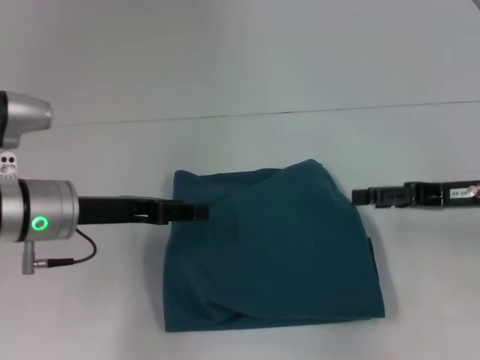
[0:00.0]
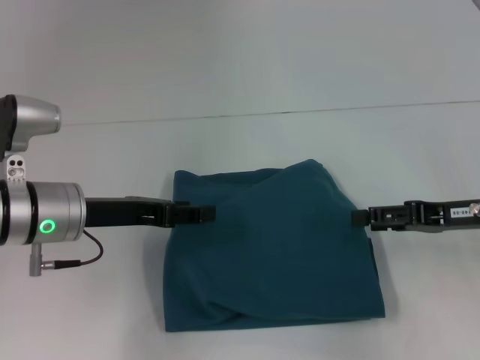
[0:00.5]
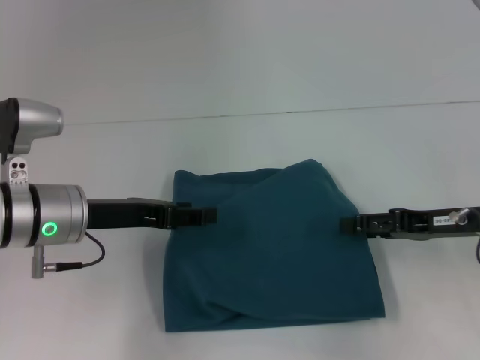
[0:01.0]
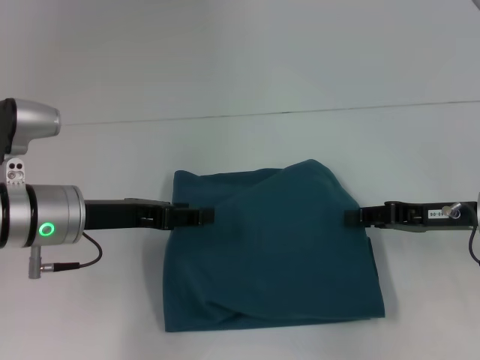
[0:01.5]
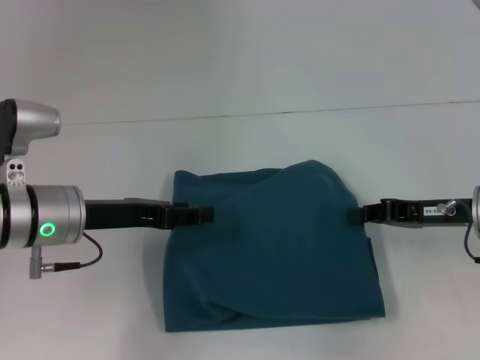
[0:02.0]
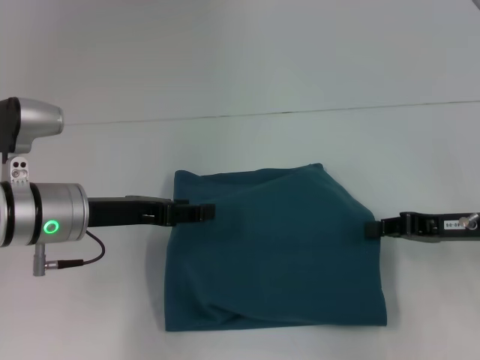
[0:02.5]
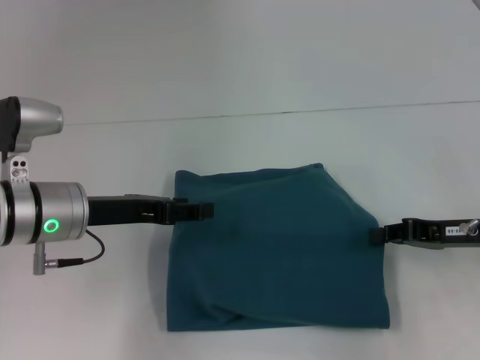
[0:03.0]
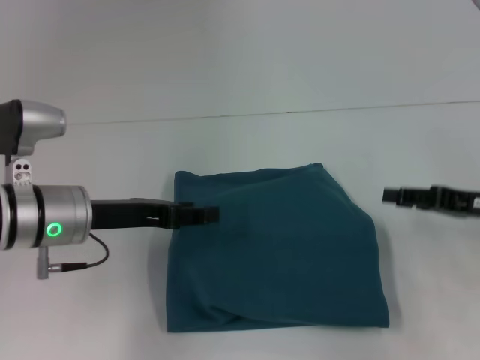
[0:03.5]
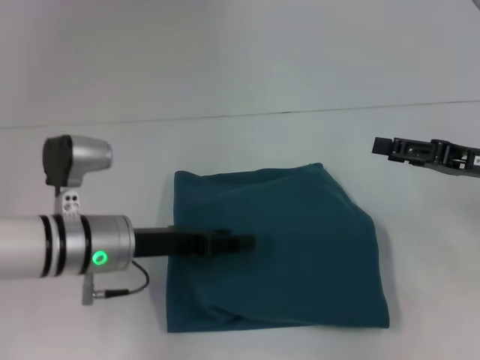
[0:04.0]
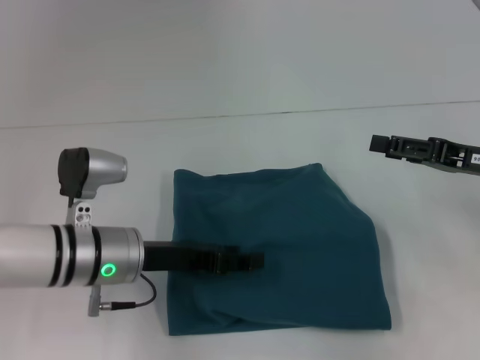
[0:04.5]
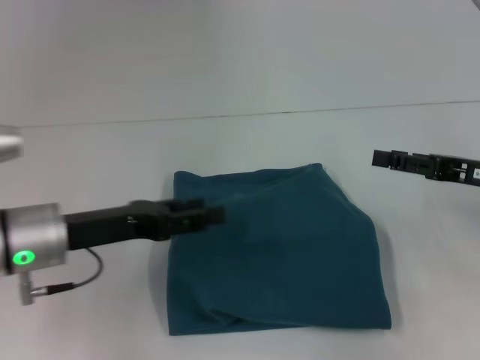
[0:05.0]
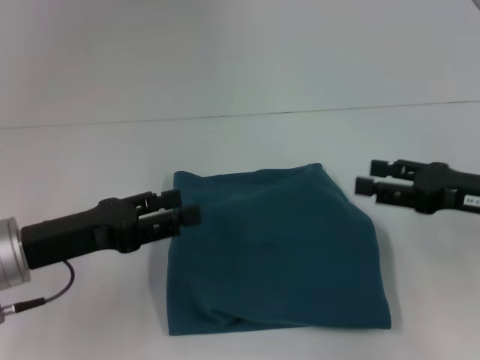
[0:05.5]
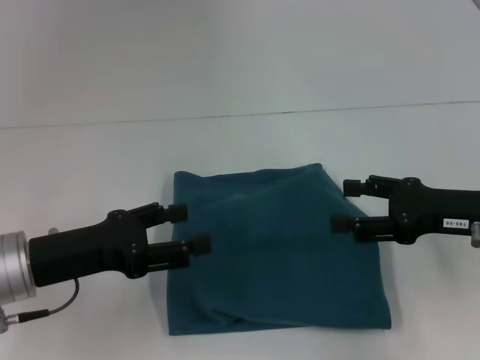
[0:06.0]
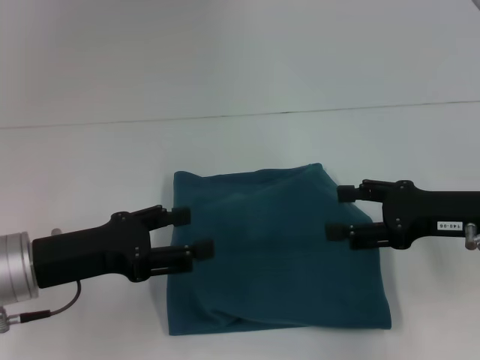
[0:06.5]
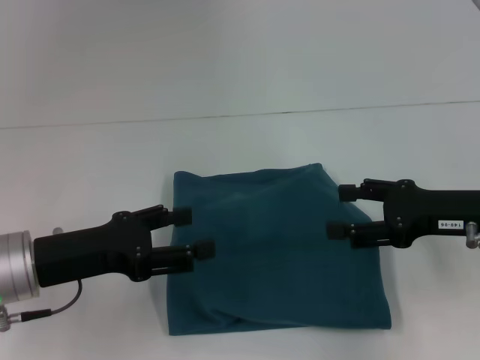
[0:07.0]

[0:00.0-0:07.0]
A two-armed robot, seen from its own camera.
0.0 to 2.0 s: The right gripper closes up.
2.0 to 3.5 s: The grippers move only a little.
3.5 to 5.0 s: The right gripper opens its fingers.

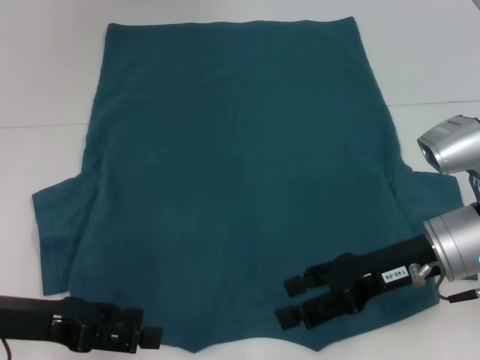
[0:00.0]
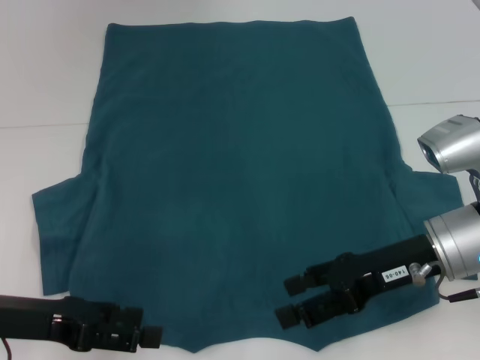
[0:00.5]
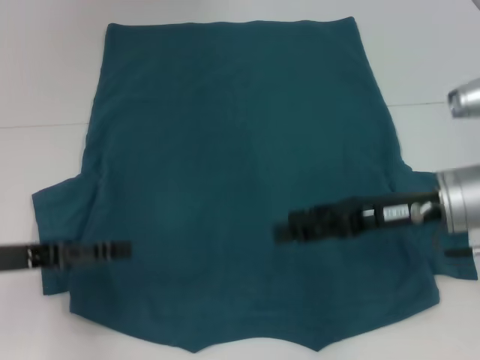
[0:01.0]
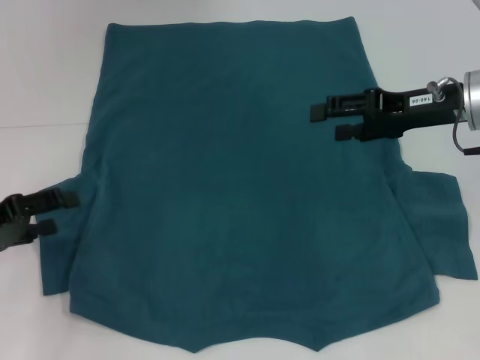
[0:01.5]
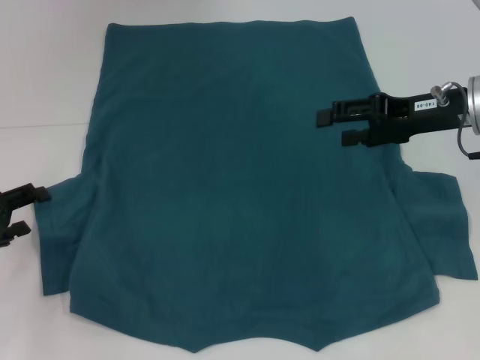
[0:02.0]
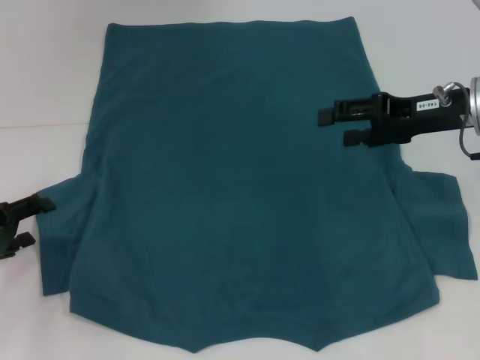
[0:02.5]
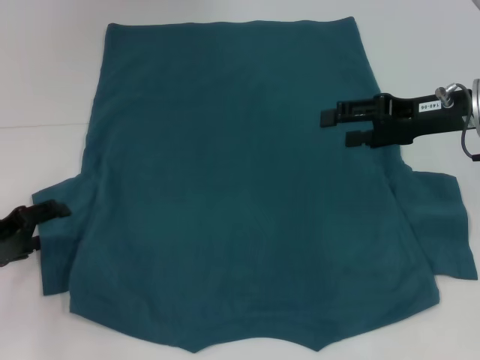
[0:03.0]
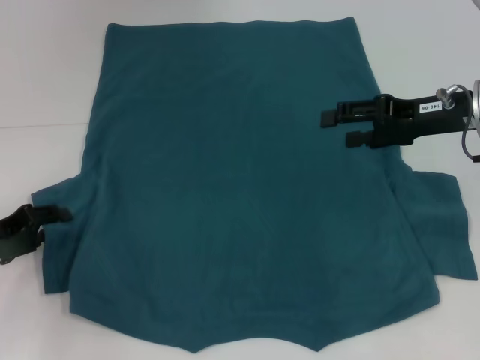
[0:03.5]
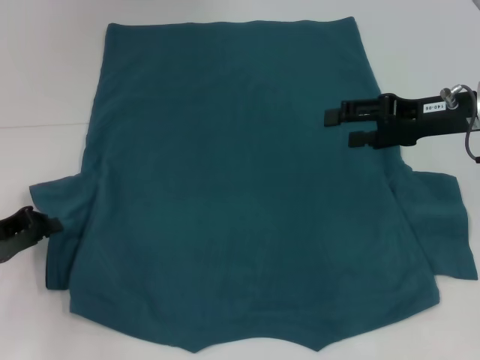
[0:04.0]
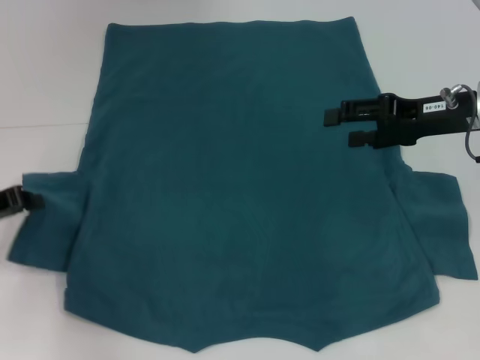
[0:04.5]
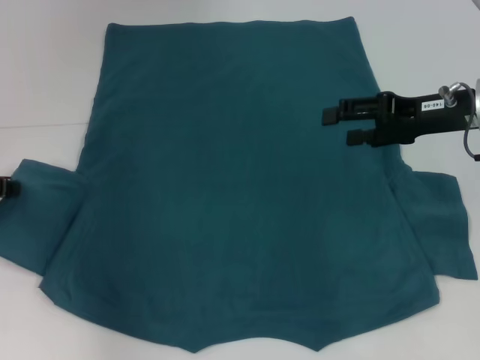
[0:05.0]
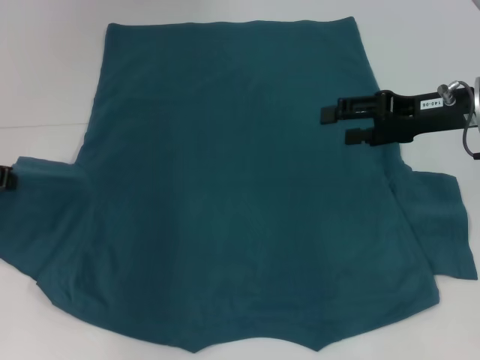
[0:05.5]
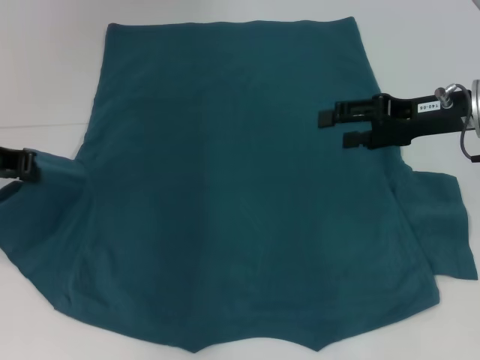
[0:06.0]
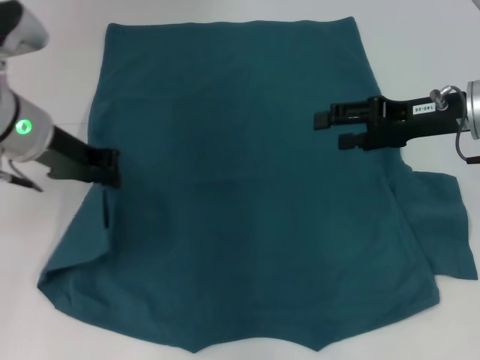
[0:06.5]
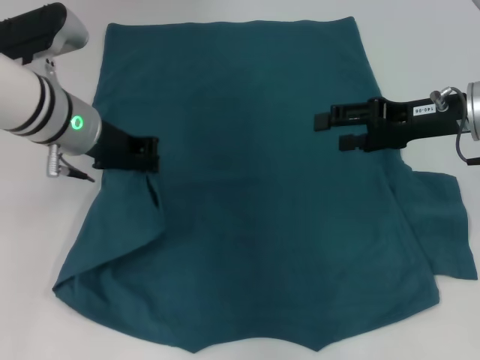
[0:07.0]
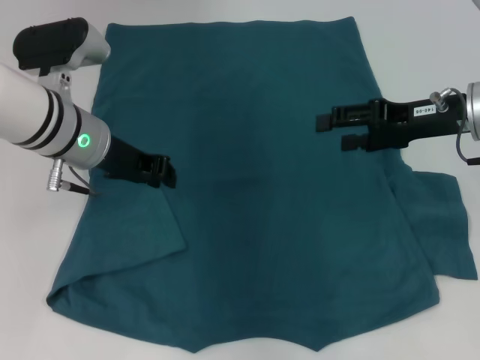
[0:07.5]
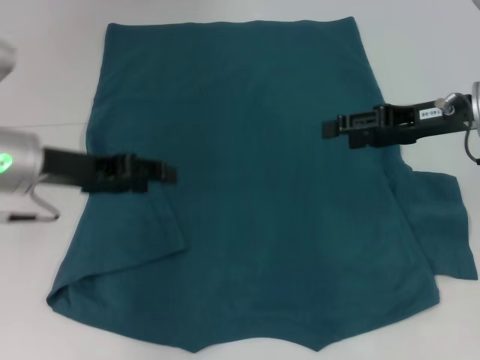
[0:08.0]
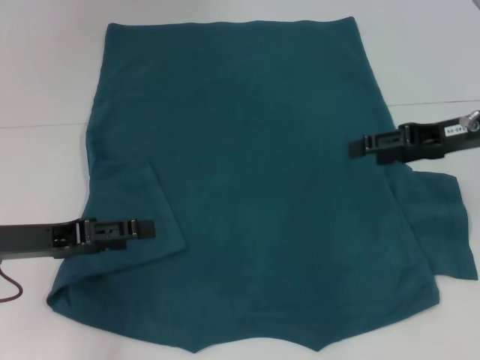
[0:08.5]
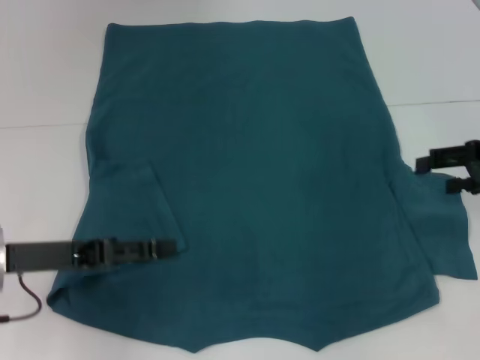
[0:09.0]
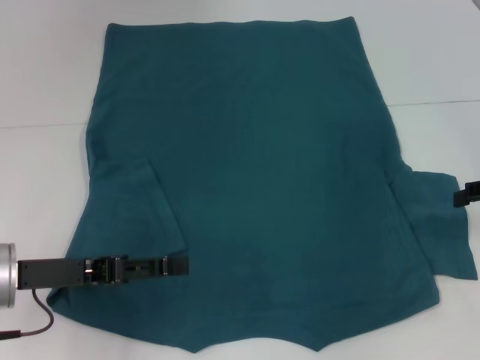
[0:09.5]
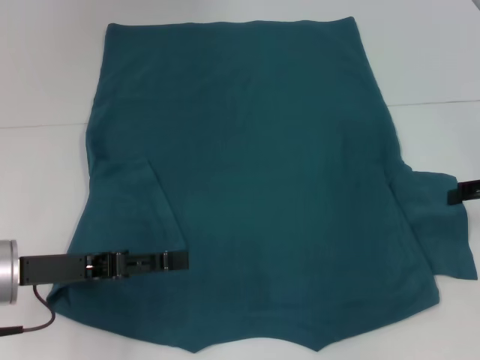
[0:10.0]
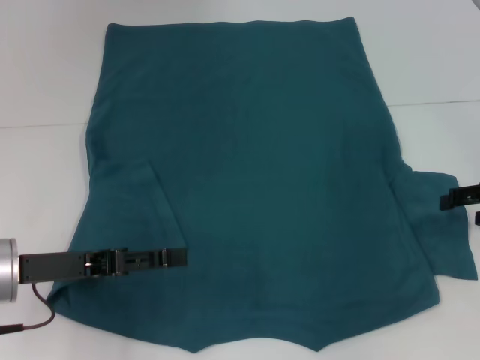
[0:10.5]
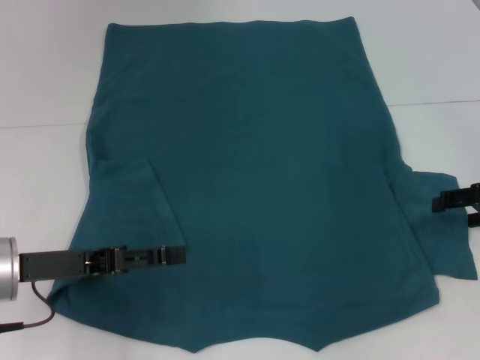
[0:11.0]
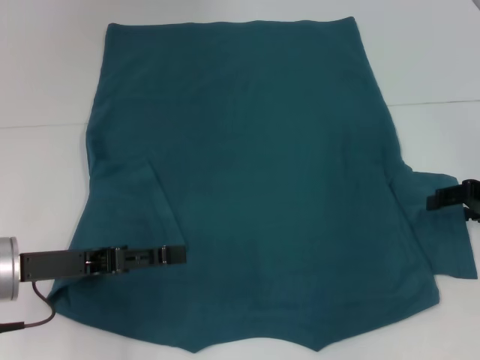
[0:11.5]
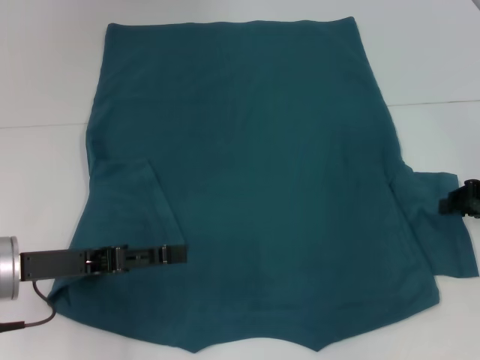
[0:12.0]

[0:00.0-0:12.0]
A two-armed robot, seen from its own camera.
Step, 0.0 to 7.5 s: Fold the bottom left sleeve with your left hand.
0.0 to 2.0 s: The left gripper goes approximately 10 cm to the left and forward, while the right gripper is displaced forward, upward and to the right by about 10 cm.
2.0 to 4.0 s: The left gripper closes its fingers.
4.0 to 6.0 s: The left gripper travels upward and forward by about 15 cm.
6.0 to 8.0 s: The left gripper opens.
8.0 to 10.0 s: The left gripper shifts roughly 10 cm backward and downward, and opens up. Meanwhile the right gripper shifts some 10 cm to the right.
10.0 to 12.0 s: There are only small adjustments of the grippers.

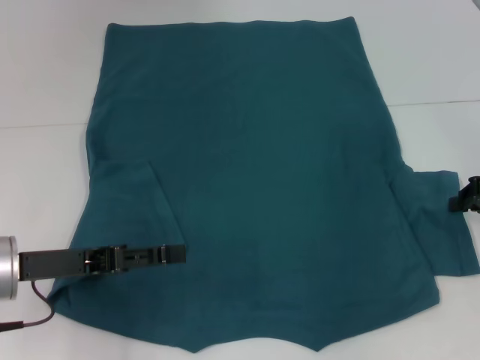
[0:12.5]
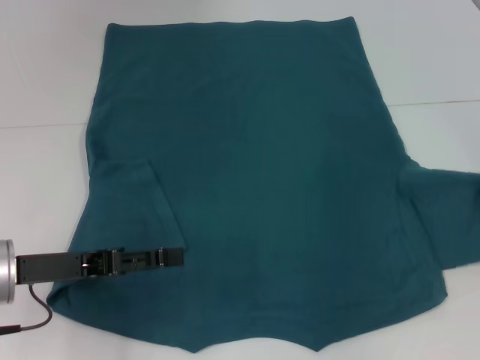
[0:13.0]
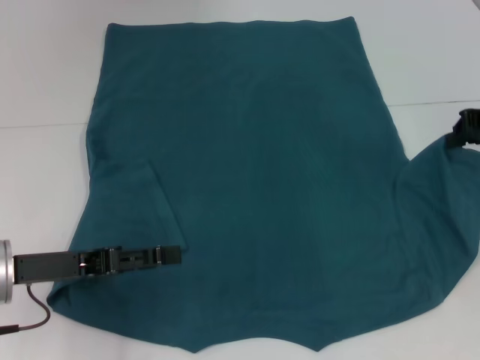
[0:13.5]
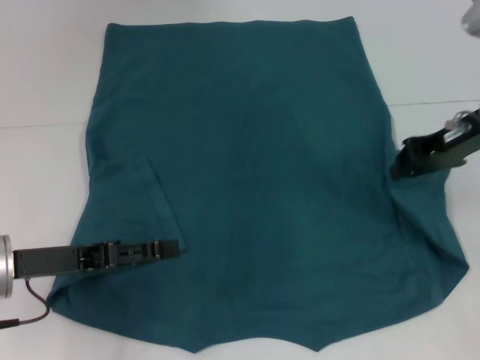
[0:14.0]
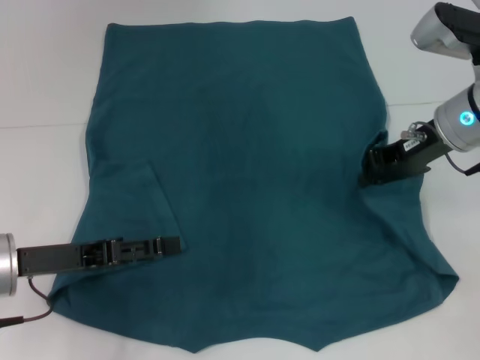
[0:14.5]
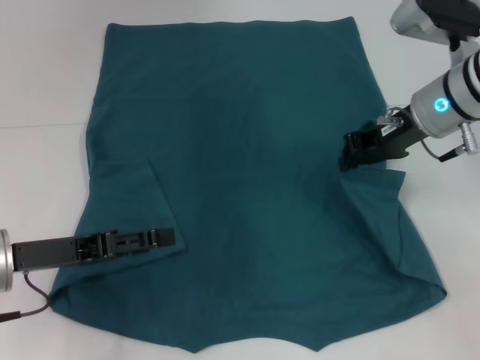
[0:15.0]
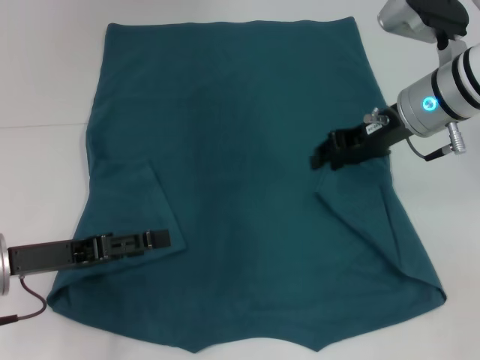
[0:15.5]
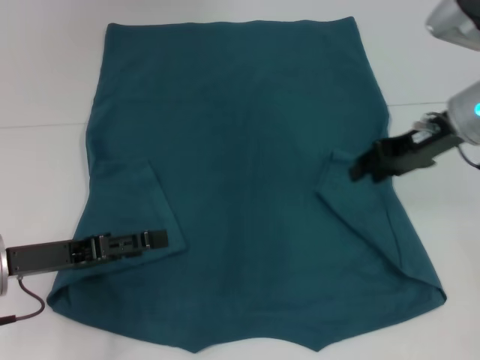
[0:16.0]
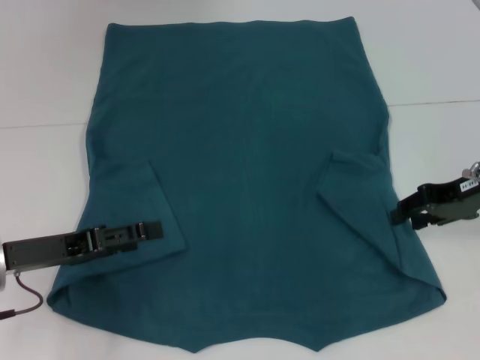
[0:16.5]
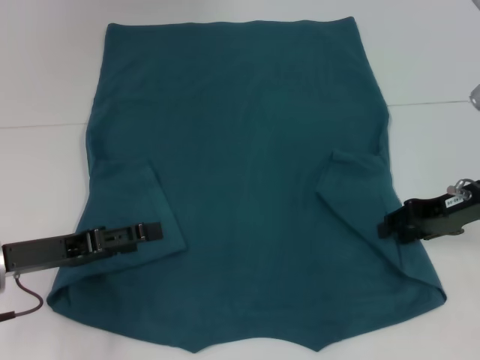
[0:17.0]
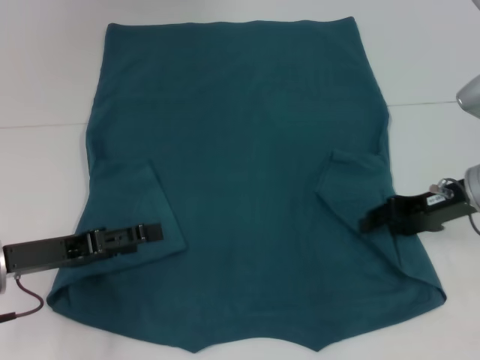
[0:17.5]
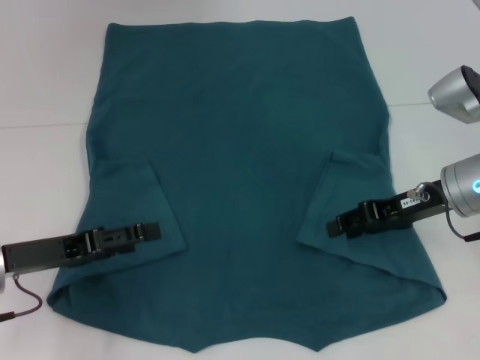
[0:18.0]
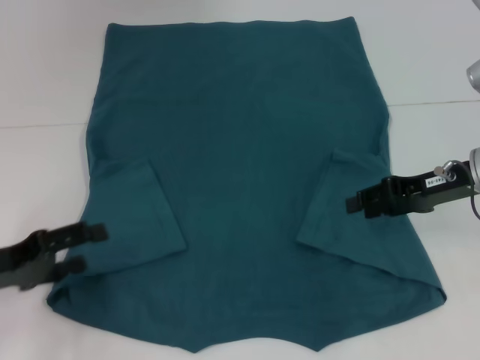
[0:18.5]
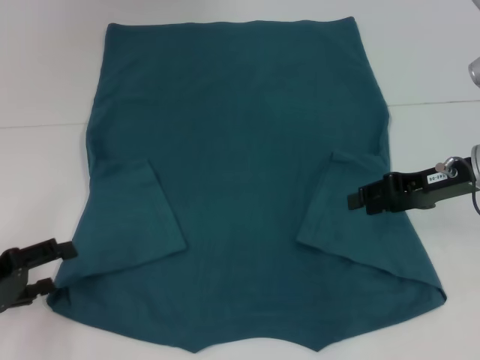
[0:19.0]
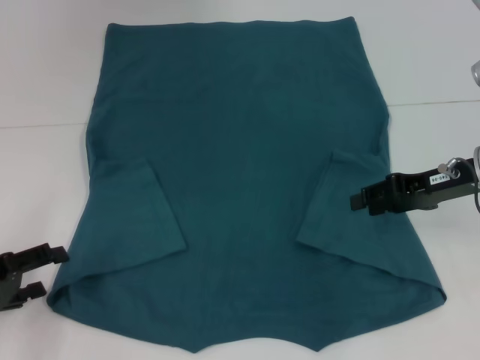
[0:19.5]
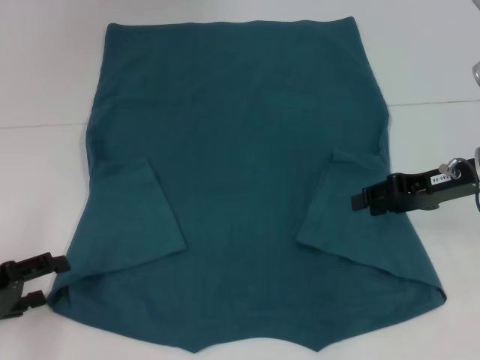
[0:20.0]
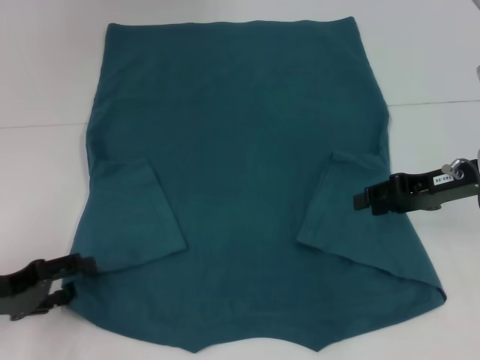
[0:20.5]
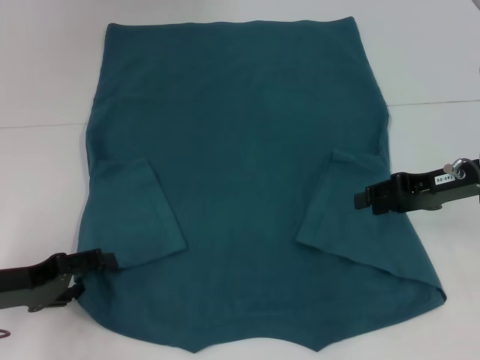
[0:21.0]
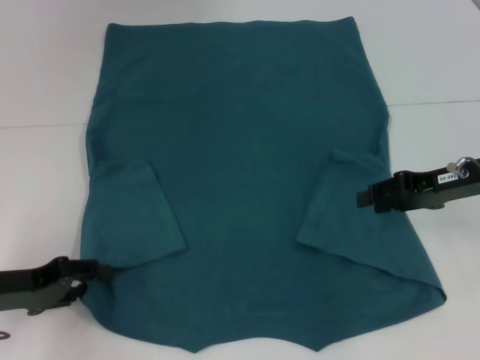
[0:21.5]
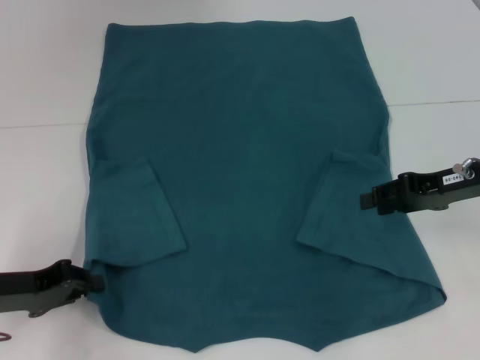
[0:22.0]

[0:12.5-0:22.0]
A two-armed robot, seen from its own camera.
Step, 12.5 to 17.5 s: Fold the bottom right sleeve to the right.
12.5 to 14.5 s: The right gripper is displaced to the left and forward by approximately 15 cm.
14.5 to 16.5 s: The right gripper shifts roughly 5 cm to the right, and opens its fingers.
16.5 to 18.0 s: The right gripper is displaced to the left by some 5 cm.
18.0 to 20.0 s: The left gripper moves to the left, some 5 cm.
20.0 to 22.0 s: The left gripper changes place by about 5 cm, and closes up.
